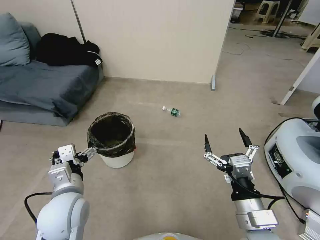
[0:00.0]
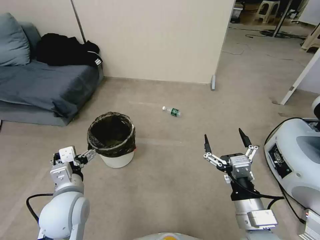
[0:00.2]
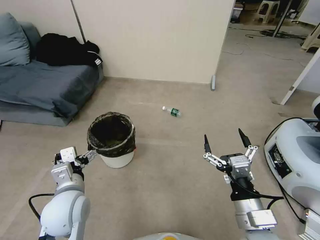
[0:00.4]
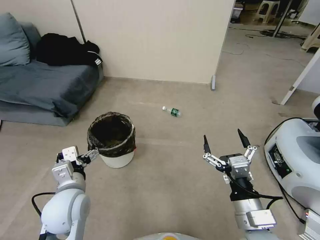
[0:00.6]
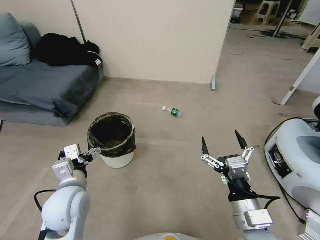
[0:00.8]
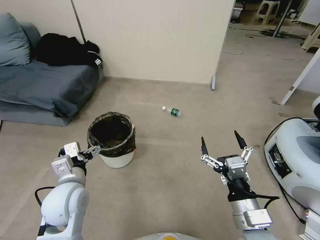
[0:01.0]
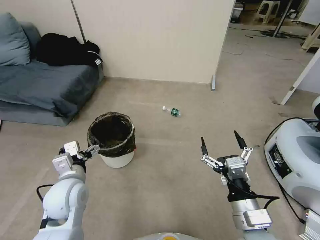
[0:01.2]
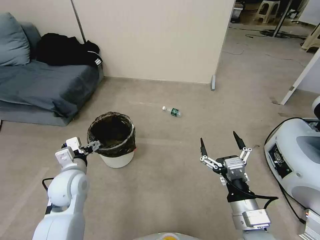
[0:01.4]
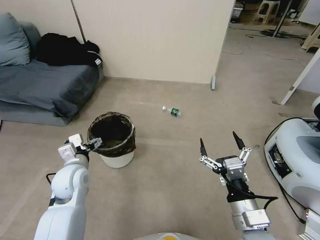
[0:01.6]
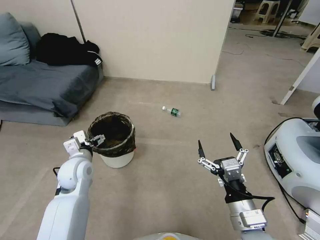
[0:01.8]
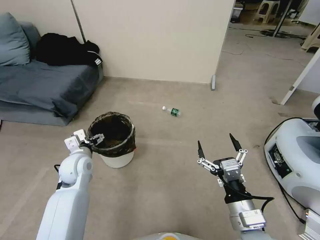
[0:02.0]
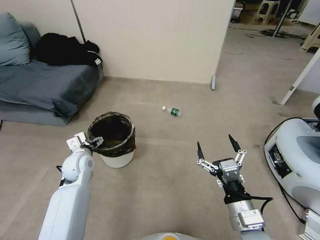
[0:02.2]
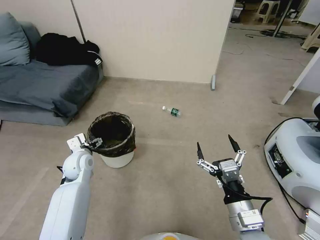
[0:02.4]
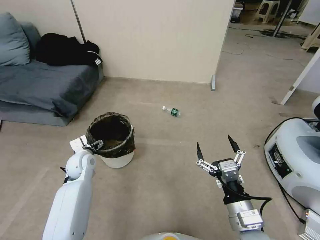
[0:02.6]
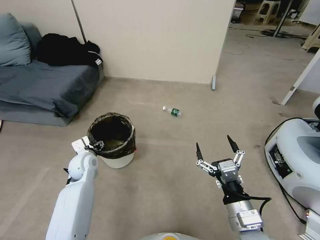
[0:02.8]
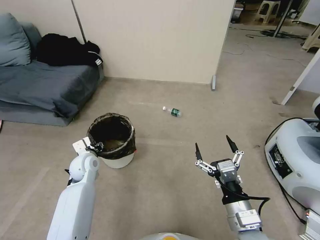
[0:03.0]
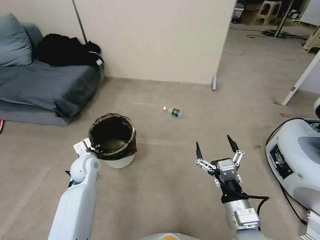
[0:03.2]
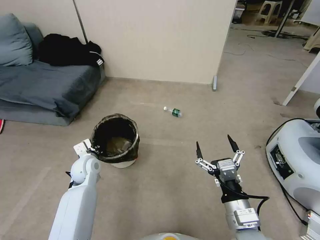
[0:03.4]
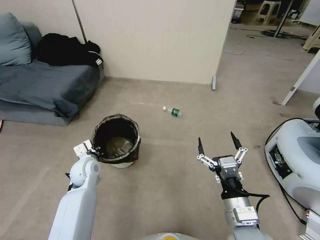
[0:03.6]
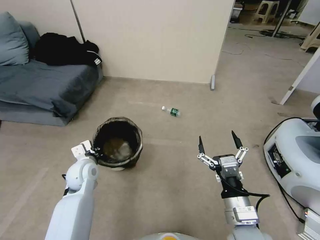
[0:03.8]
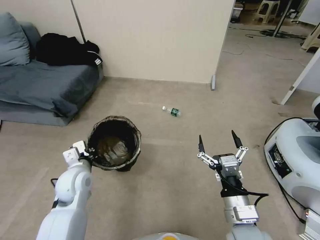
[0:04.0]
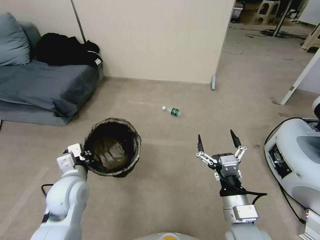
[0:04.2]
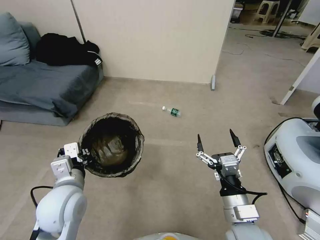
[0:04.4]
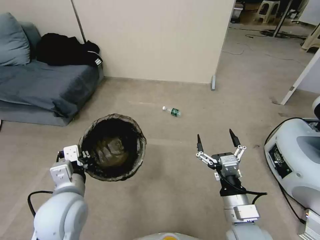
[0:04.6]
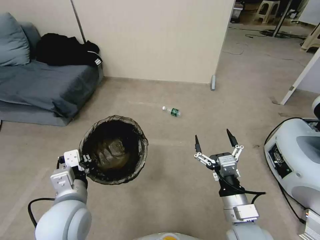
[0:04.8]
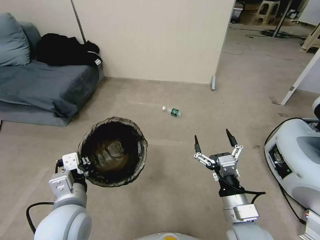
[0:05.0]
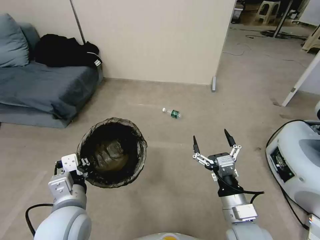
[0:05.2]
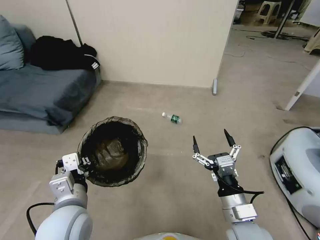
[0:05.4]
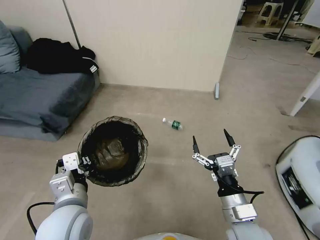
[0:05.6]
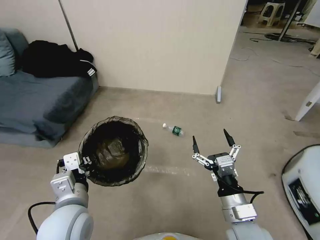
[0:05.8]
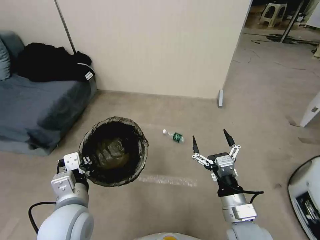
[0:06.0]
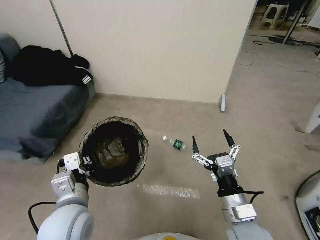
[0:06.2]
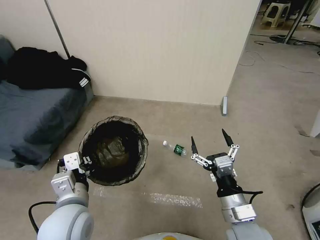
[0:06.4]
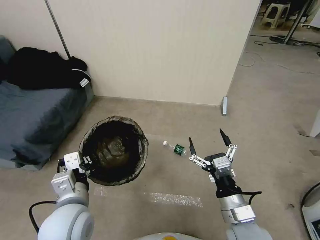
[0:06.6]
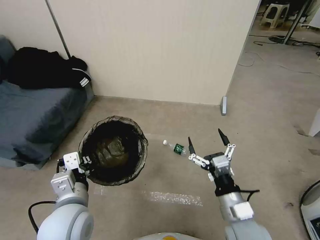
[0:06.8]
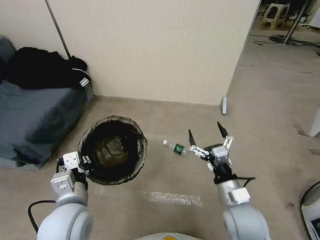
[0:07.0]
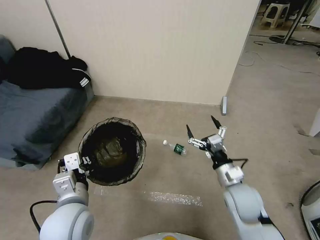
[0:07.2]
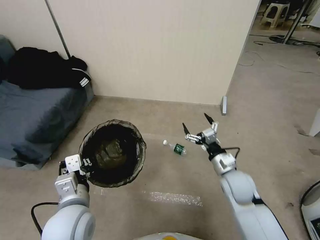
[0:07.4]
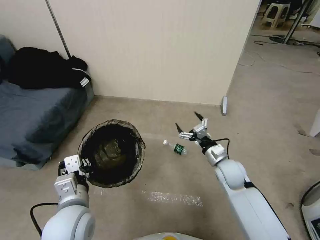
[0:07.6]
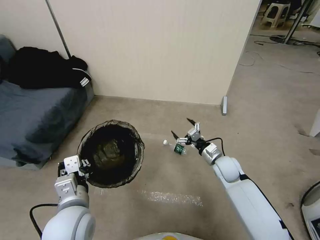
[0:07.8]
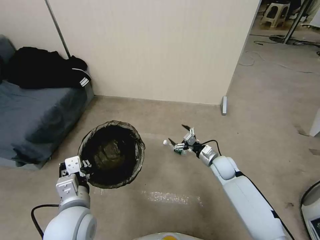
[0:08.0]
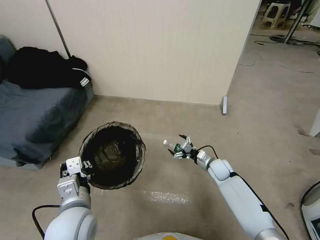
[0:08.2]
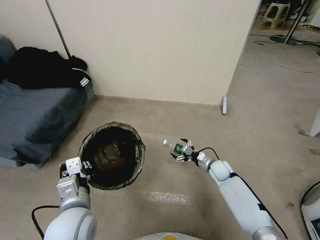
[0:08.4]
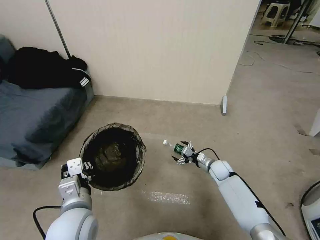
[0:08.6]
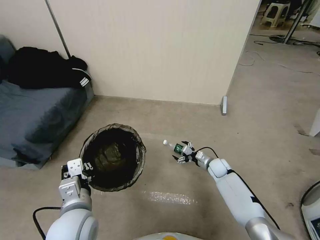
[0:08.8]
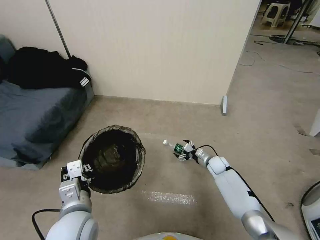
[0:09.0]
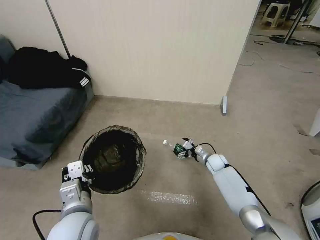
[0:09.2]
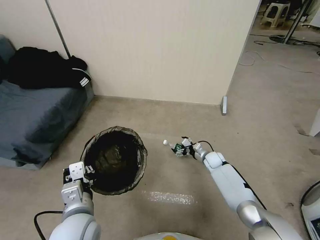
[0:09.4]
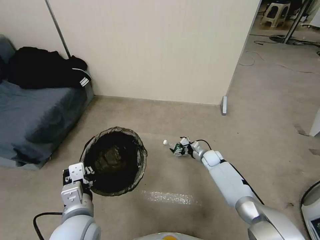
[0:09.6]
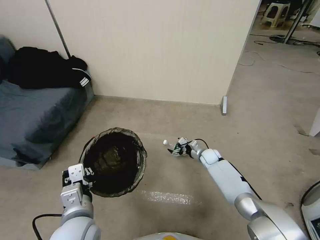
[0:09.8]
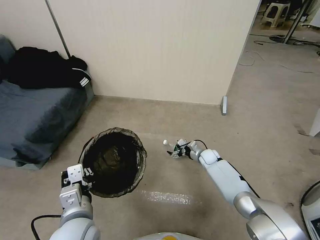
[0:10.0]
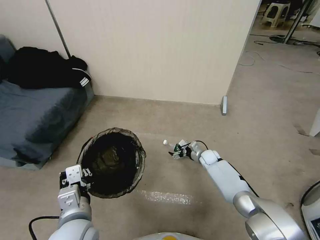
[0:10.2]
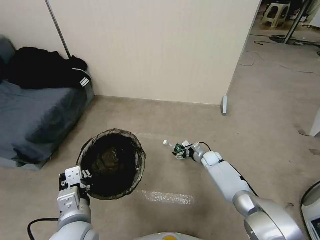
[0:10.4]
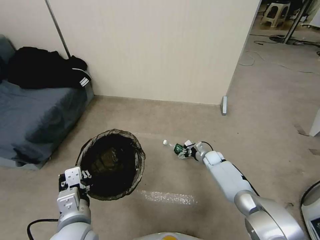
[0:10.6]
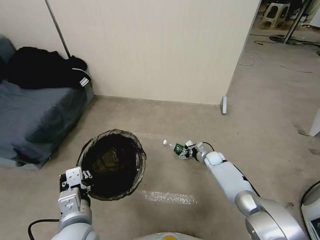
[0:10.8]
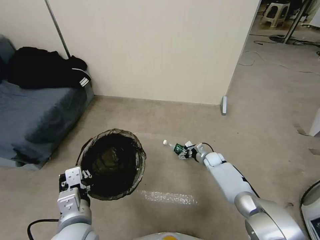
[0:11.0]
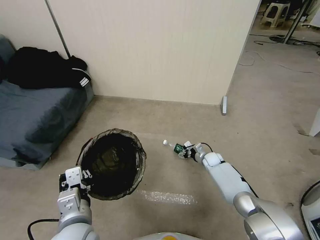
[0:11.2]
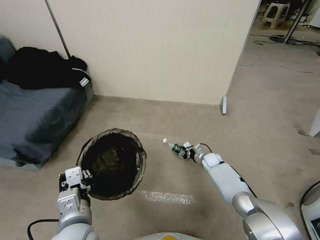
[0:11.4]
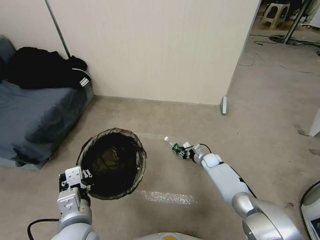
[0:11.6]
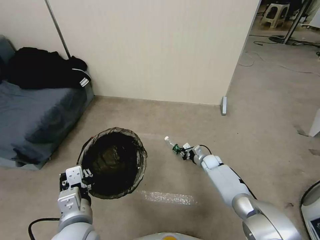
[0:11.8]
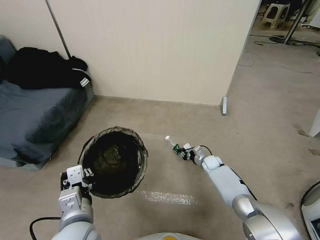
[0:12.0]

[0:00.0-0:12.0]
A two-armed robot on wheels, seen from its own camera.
Task of the whole recording: Pick up the trash bin, then pick up the garbage from the floor and place it into the trash bin.
0:00.0 to 0:01.6: The left gripper moves forward, approximately 10 cm.
0:01.6 to 0:03.0: The left gripper is displaced forward and downward by roughly 10 cm, and closes.
0:03.0 to 0:04.4: The left gripper goes approximately 20 cm backward and upward, and closes.
0:04.4 to 0:06.0: The left gripper ends up roughly 5 cm from where it was.
0:06.0 to 0:07.6: The right gripper shifts approximately 20 cm forward.
0:07.6 to 0:09.0: The right gripper moves downward and forward, roughly 20 cm.
0:09.0 to 0:10.4: The grippers make only small movements.
0:10.4 to 0:12.0: The right gripper closes its fingers.

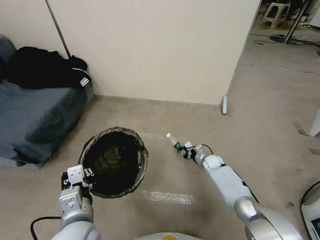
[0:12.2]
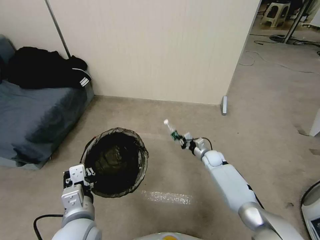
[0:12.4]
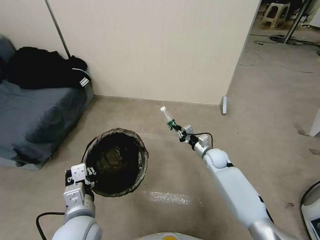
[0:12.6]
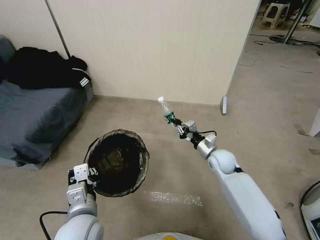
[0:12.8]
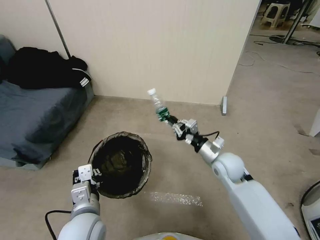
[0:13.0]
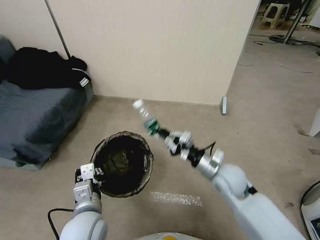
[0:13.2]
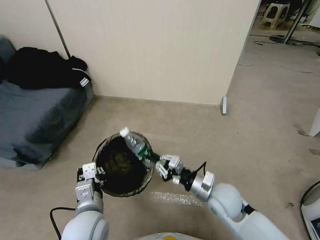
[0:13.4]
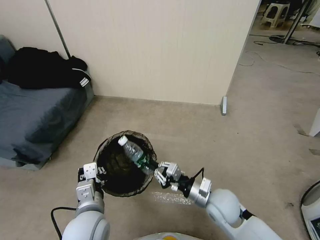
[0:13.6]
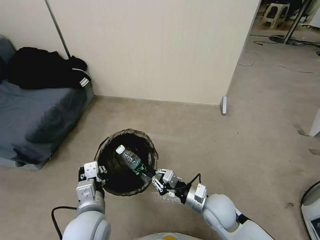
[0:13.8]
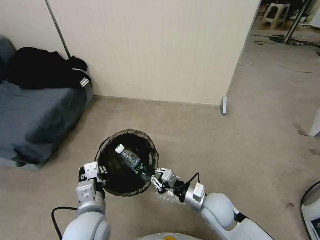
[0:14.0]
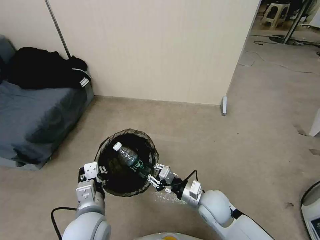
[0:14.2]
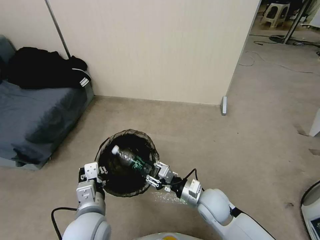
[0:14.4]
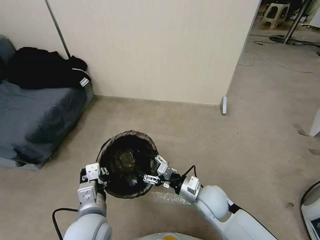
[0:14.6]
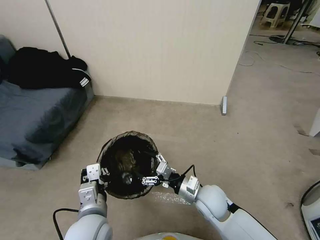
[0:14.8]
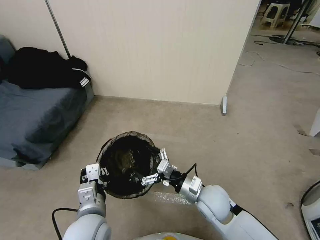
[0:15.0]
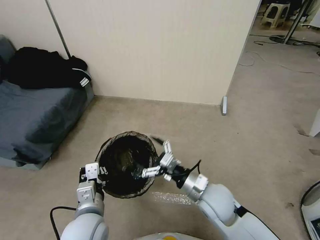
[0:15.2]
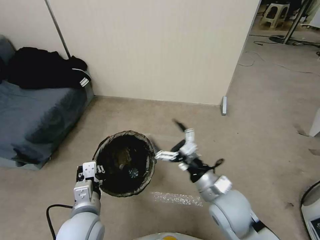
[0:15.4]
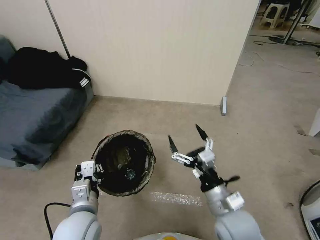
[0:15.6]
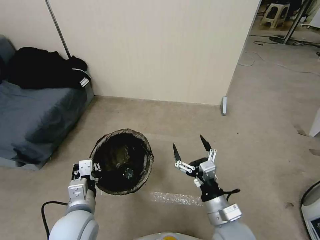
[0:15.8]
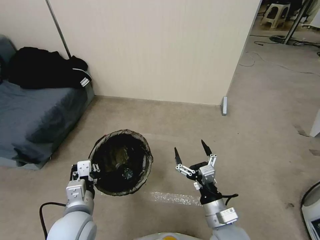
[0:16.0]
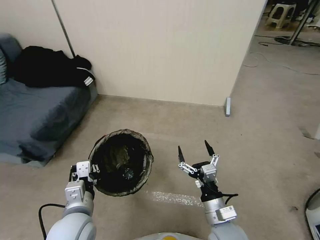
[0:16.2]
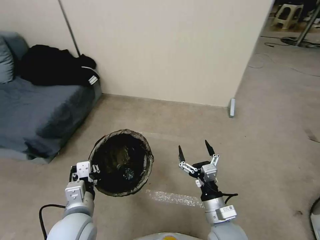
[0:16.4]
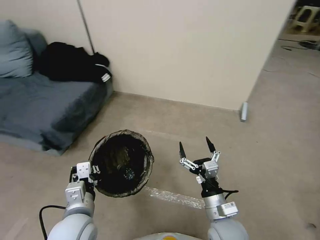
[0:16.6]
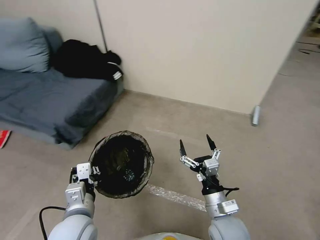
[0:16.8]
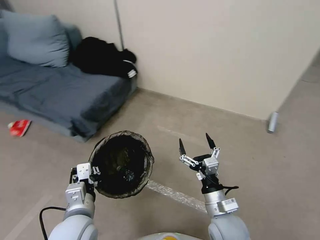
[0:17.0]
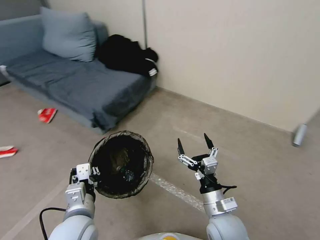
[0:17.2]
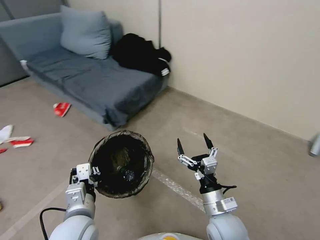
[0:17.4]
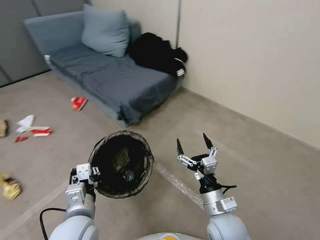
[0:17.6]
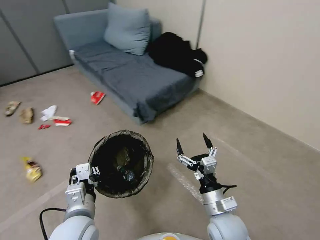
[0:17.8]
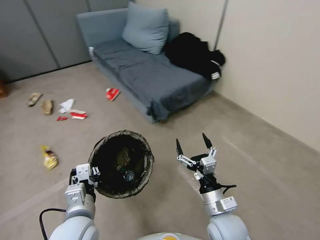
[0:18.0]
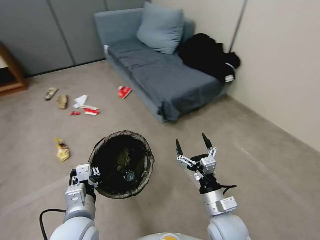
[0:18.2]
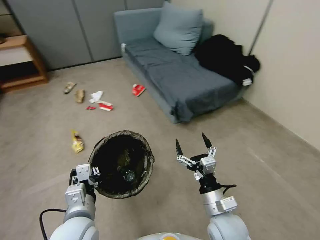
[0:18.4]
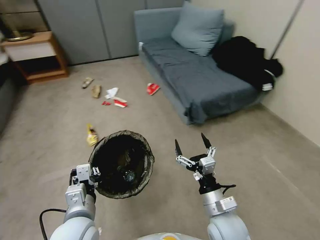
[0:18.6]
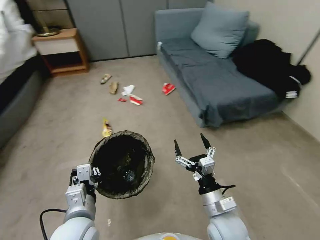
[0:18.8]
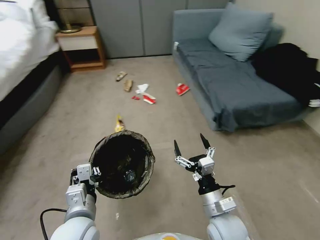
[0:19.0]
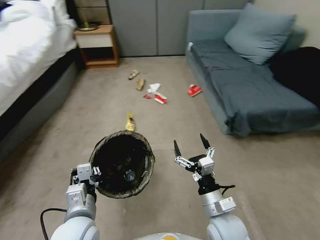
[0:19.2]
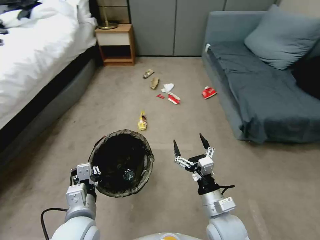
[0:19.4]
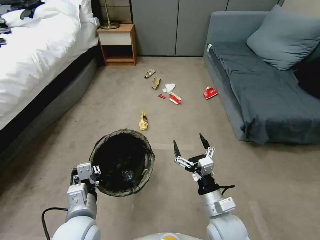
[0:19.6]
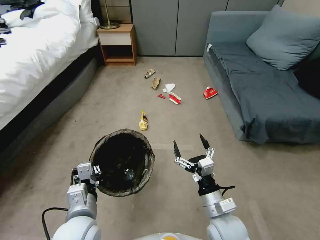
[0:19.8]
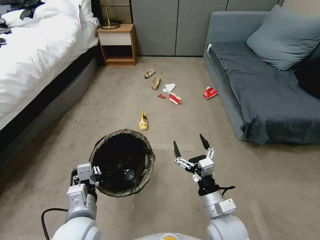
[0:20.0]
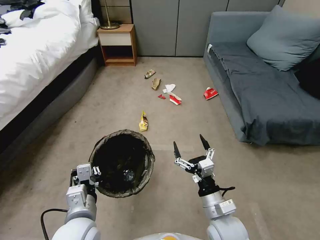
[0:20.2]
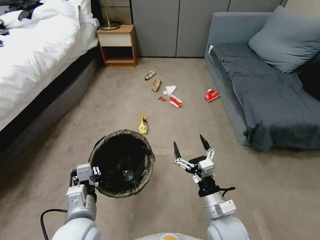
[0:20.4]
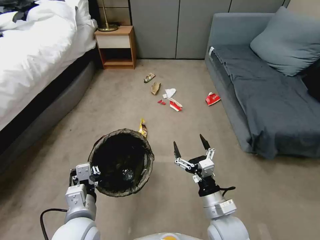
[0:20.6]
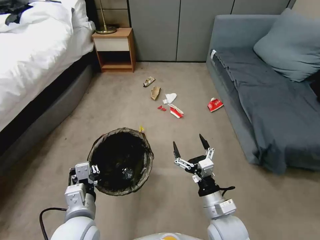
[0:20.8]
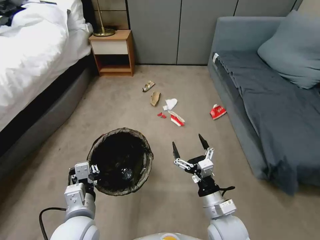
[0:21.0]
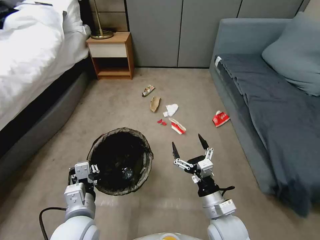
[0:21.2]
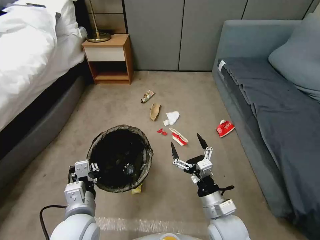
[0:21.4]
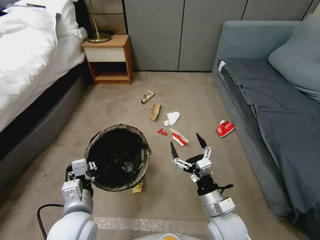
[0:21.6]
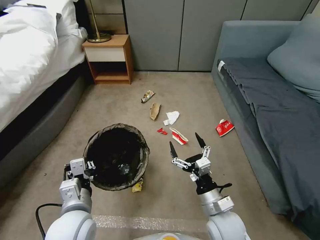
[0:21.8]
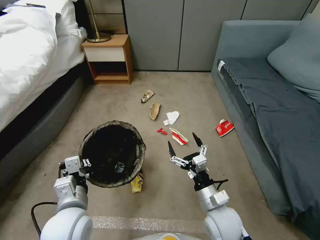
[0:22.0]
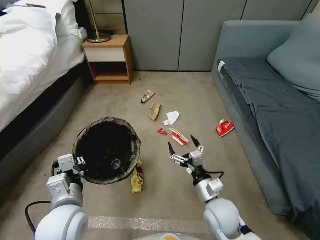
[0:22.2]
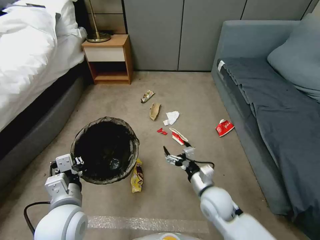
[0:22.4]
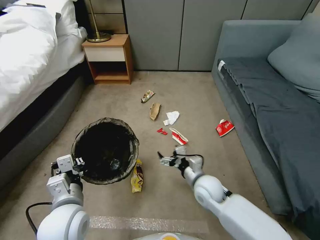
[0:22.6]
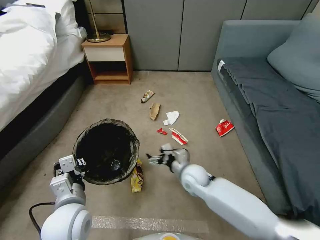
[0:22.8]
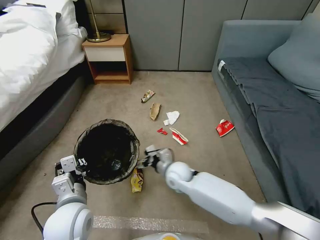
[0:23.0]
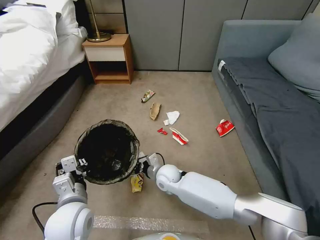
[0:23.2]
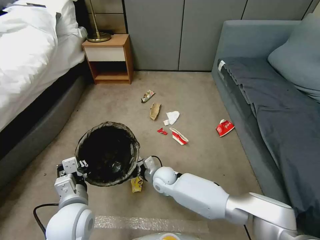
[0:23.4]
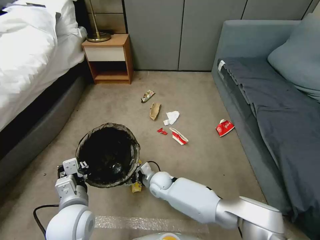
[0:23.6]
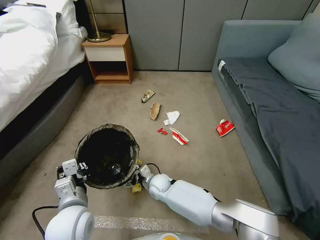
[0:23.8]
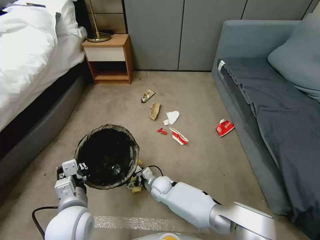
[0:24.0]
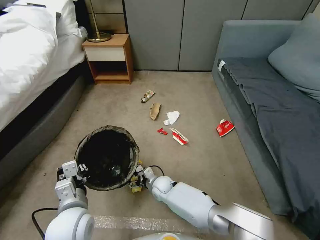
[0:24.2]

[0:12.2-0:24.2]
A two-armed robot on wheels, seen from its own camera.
Task of the whole recording: Pick up the trash bin, then pick up the garbage from the floor and place it into the trash bin.
0:12.2 to 0:13.8: The right gripper is displaced backward and upward by about 30 cm.
0:13.8 to 0:15.2: The right gripper is displaced upward by some 5 cm, and opens its fingers.
0:15.2 to 0:16.6: The right gripper goes about 5 cm backward.
0:21.2 to 0:22.6: The right gripper goes roughly 5 cm forward.
0:22.6 to 0:24.2: The right gripper moves to the left, downward and forward, roughly 25 cm.
